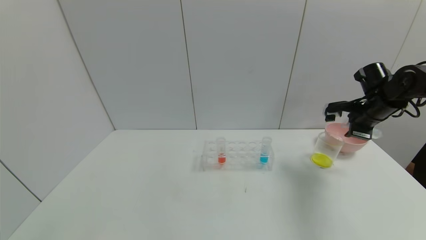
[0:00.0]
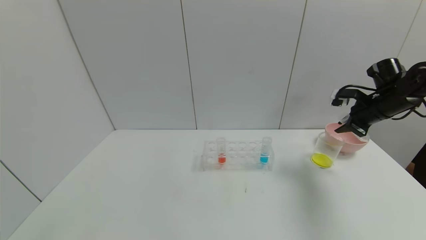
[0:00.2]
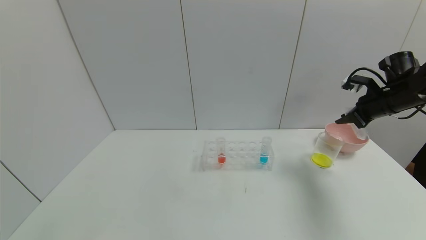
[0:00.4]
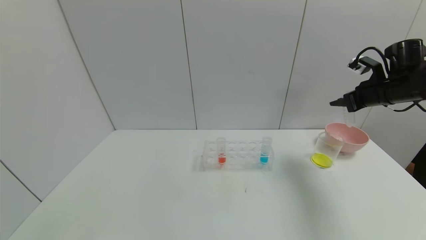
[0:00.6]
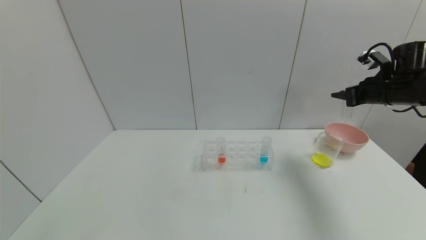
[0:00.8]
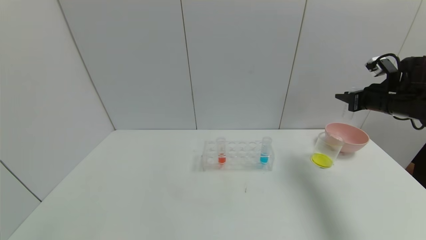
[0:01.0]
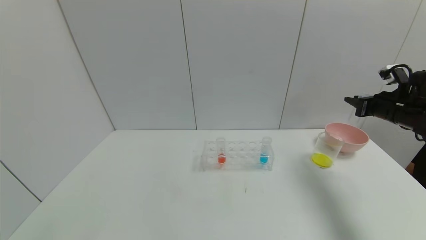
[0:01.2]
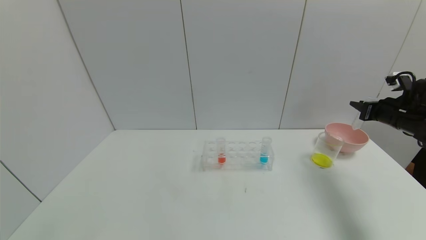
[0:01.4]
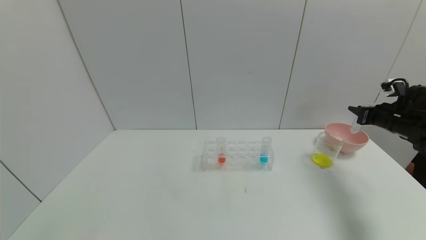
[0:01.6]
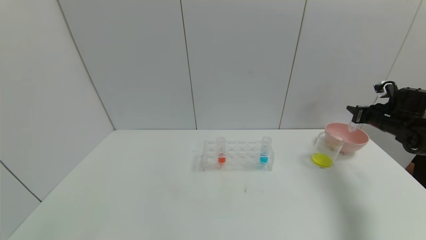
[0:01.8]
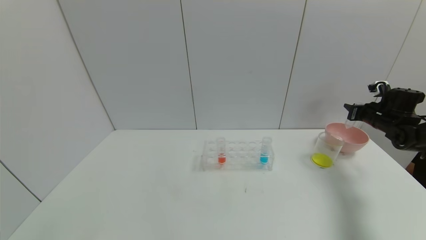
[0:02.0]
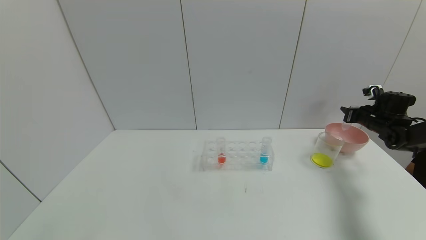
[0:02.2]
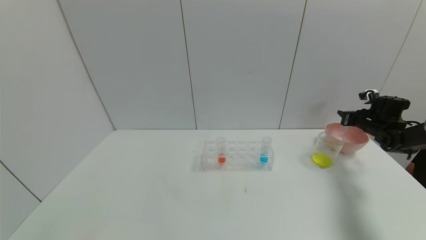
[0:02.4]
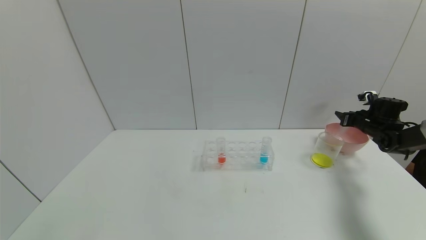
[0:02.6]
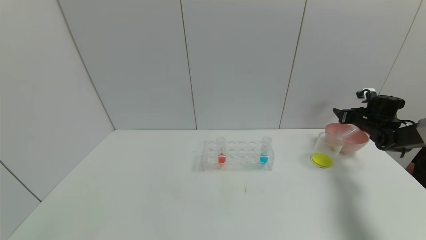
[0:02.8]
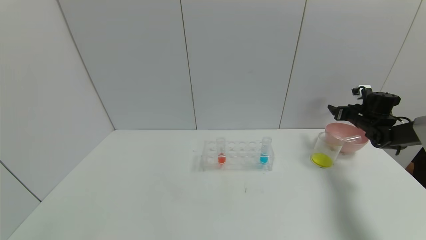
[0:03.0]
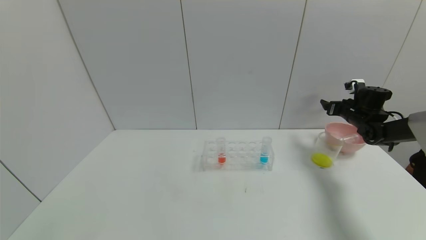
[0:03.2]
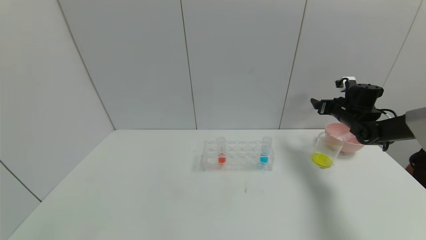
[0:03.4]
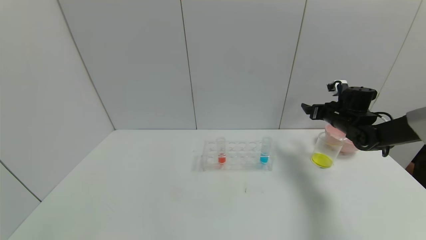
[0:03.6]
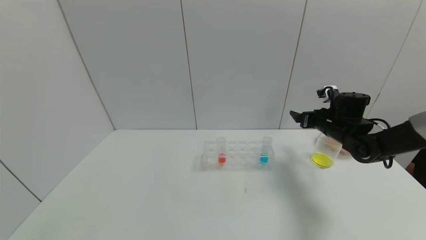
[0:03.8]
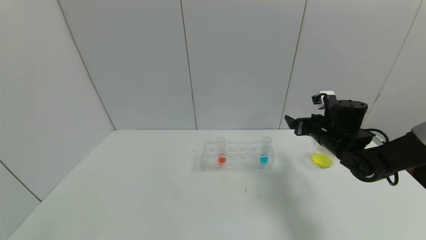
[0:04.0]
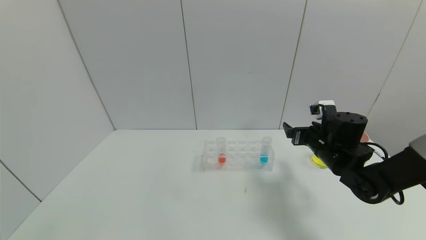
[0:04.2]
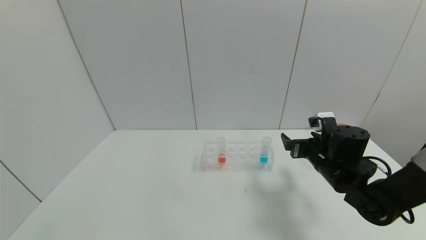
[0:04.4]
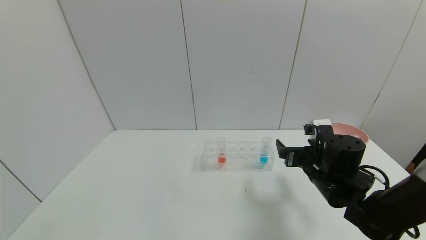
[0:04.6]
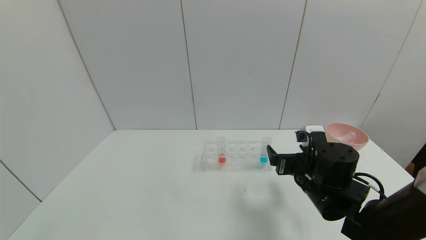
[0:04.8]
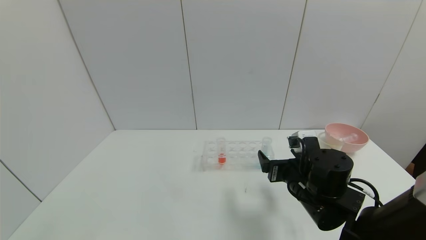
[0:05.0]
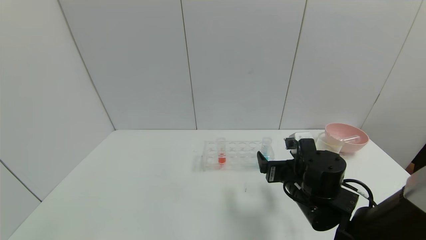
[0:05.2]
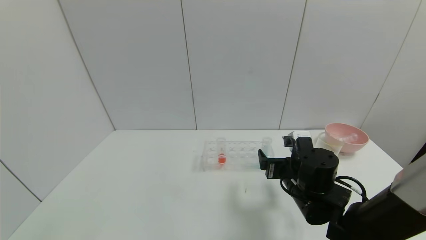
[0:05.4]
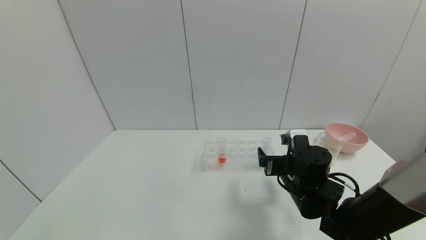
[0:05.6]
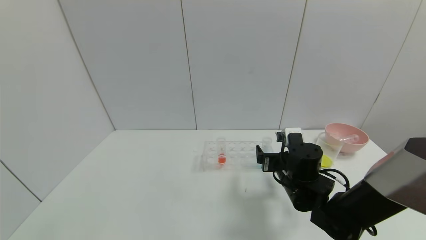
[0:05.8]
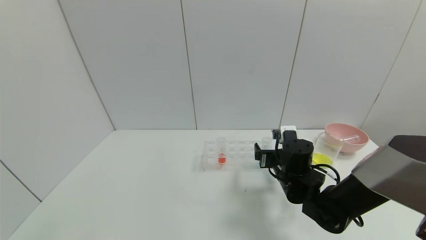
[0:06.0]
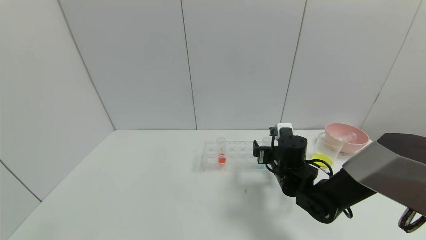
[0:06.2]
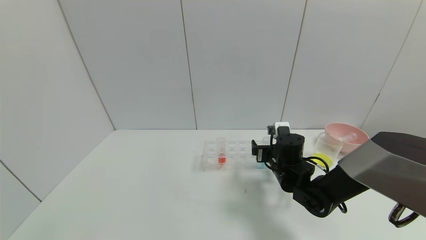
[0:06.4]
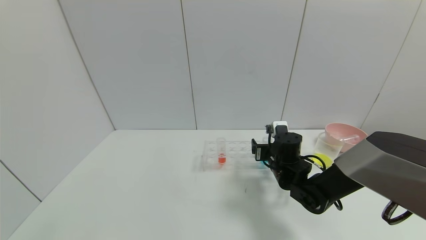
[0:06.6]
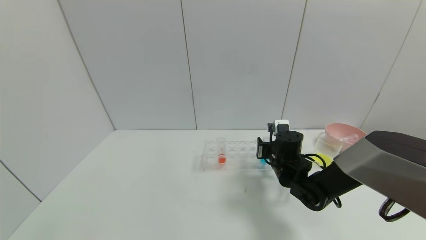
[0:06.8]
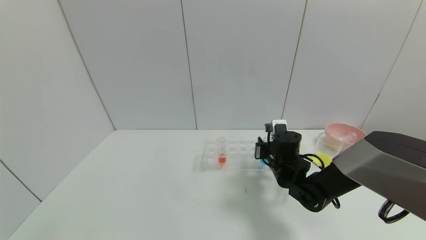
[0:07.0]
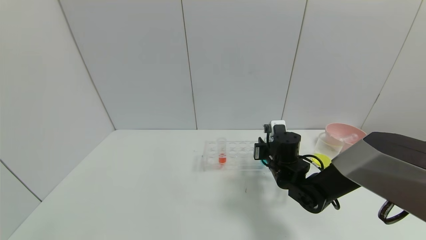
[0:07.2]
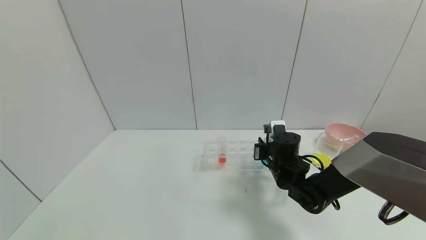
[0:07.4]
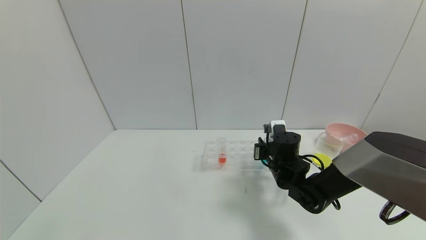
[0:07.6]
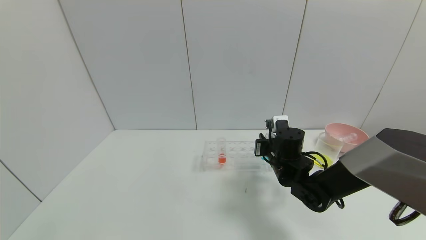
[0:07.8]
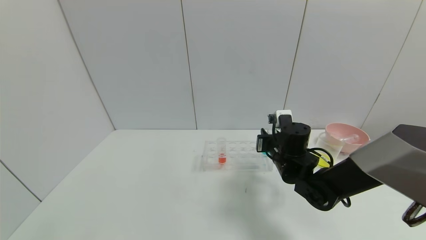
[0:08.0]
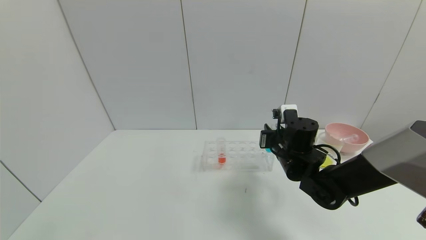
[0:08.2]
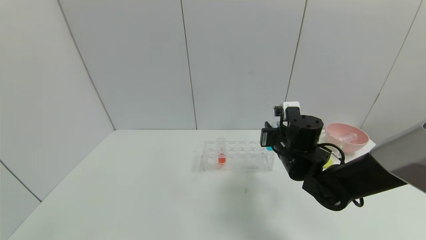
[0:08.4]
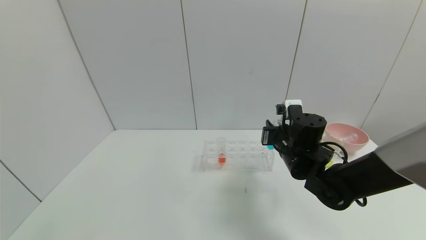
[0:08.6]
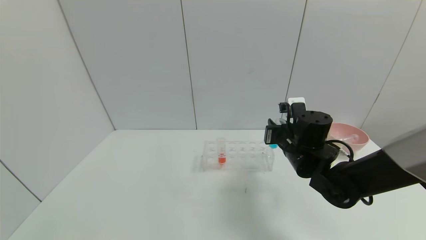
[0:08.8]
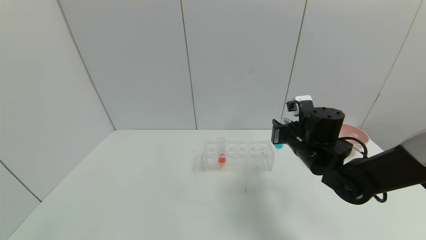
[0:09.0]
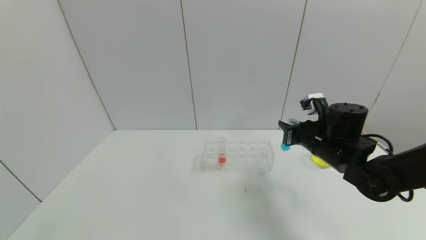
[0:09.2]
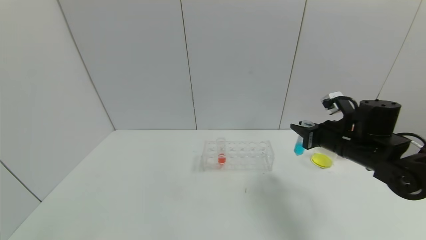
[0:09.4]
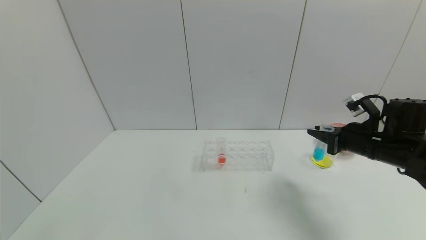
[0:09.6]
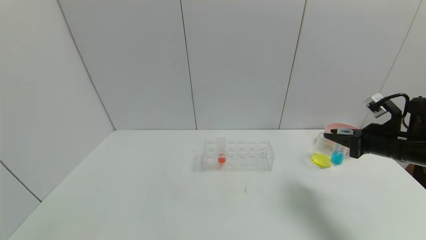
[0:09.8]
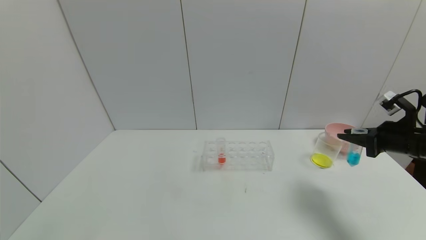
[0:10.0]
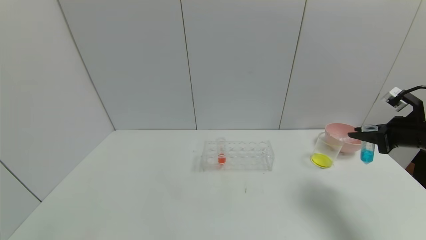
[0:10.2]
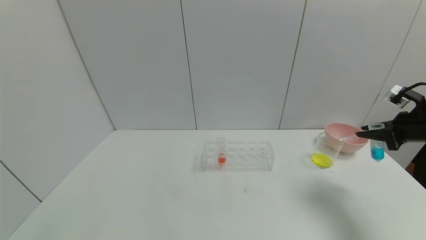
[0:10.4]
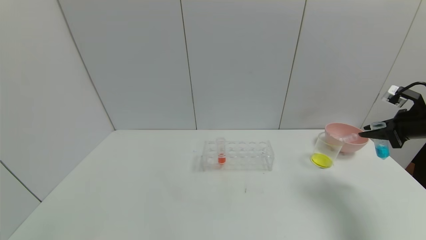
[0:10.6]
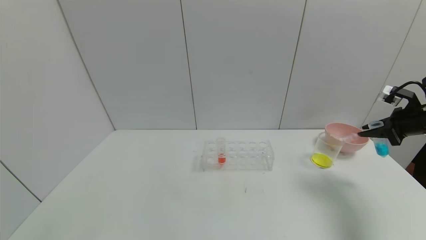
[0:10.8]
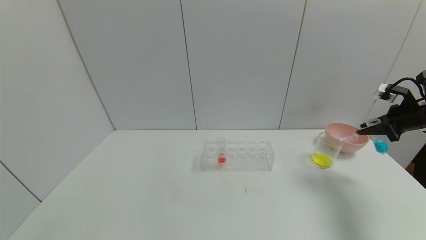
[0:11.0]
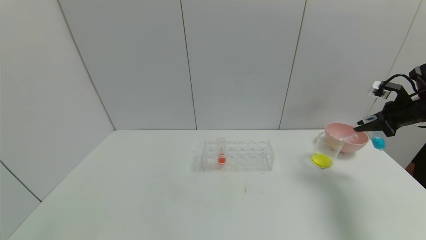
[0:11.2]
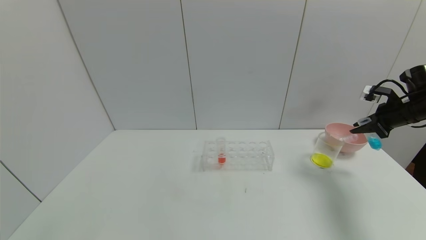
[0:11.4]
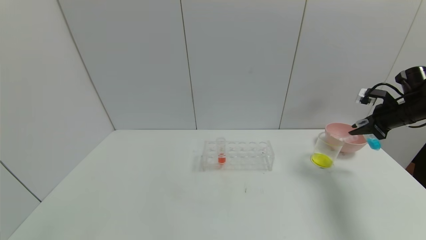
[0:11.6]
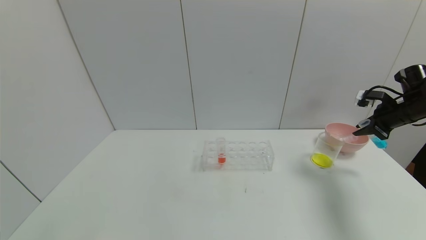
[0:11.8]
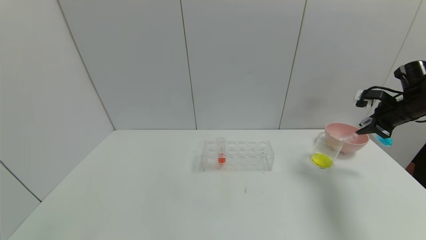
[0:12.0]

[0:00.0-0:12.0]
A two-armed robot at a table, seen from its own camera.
Task of the whole recording: pick up the test tube with yellow pigment and the test tube with blue pigment by grippers and pour them into the beaker.
Step, 0:00.0 to 0:03.2: Place the test tube into the bowl with the right gripper.
Step, 0:03.4 to 0:07.2: Grasp the blue reagent with the right gripper.
0:00.0 to 0:01.6: The right gripper goes about 10 cm to the right.
0:01.6 to 0:03.0: The right gripper goes approximately 10 cm forward, and opens up.
0:03.0 to 0:04.4: The right gripper moves to the left and backward, roughly 30 cm.
0:04.4 to 0:06.0: The right gripper goes some 10 cm to the left.
0:06.0 to 0:07.6: The right gripper closes up.
0:07.6 to 0:09.0: The right gripper heads upward, covering roughly 5 cm.
0:09.0 to 0:10.4: The right gripper heads to the right, covering some 25 cm.
0:10.4 to 0:12.0: The right gripper travels forward by some 10 cm.

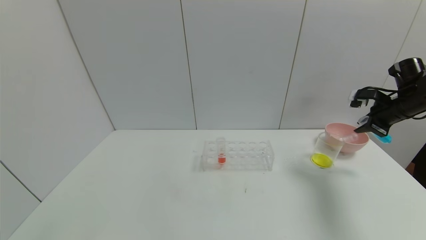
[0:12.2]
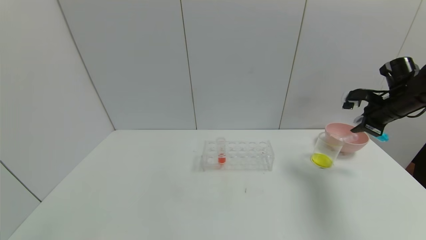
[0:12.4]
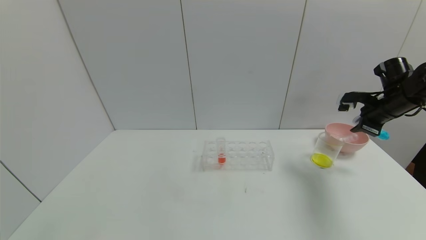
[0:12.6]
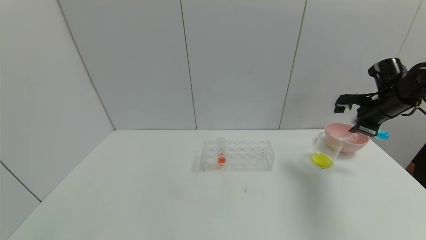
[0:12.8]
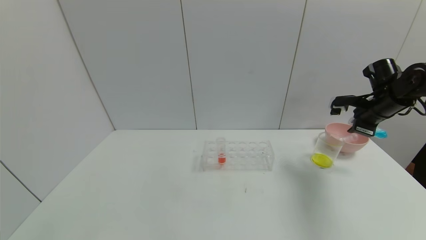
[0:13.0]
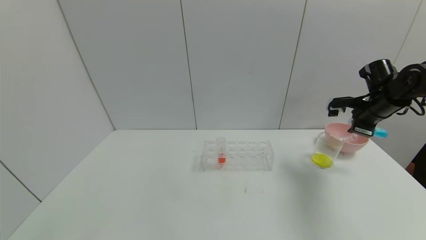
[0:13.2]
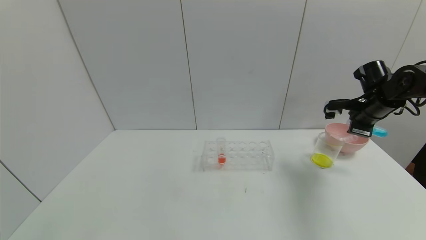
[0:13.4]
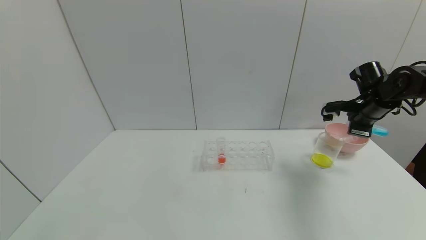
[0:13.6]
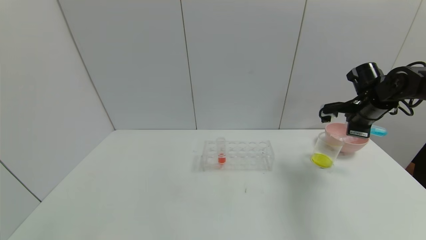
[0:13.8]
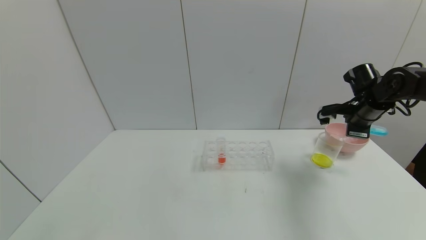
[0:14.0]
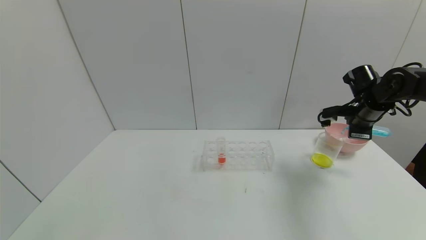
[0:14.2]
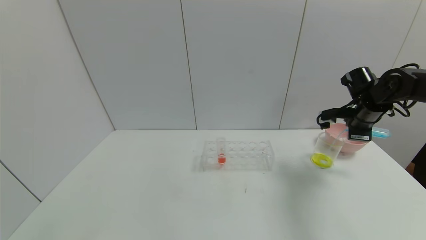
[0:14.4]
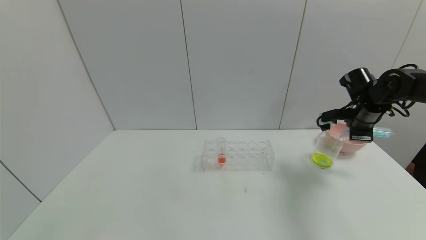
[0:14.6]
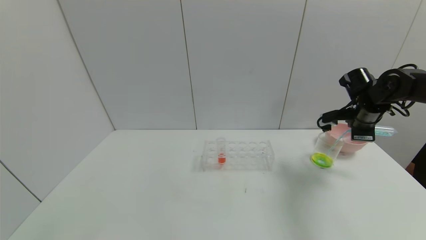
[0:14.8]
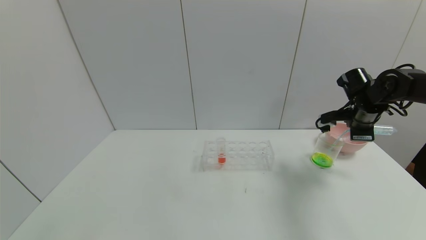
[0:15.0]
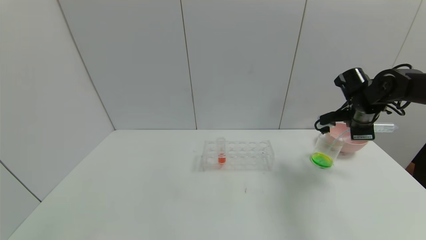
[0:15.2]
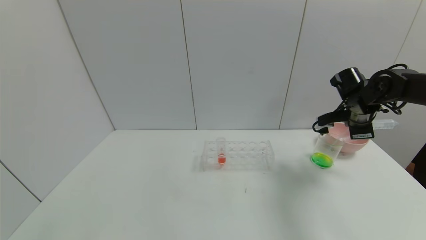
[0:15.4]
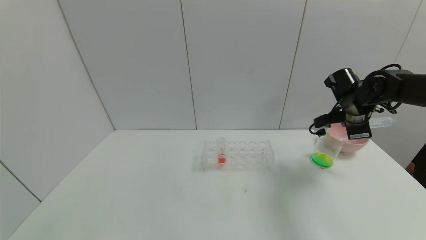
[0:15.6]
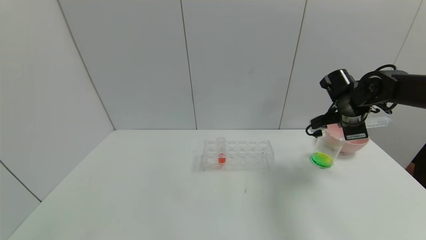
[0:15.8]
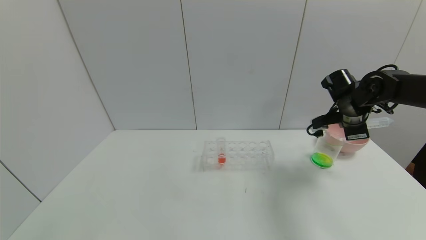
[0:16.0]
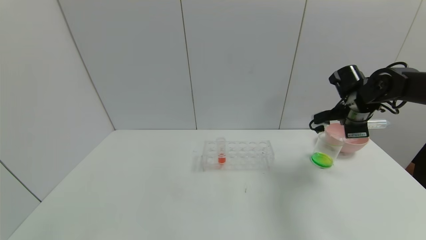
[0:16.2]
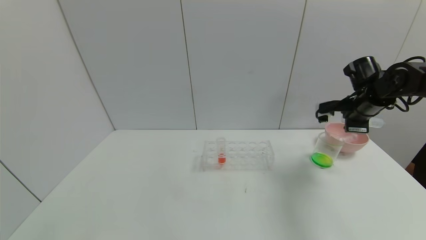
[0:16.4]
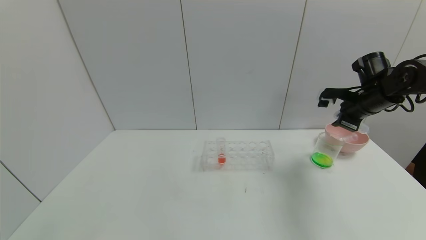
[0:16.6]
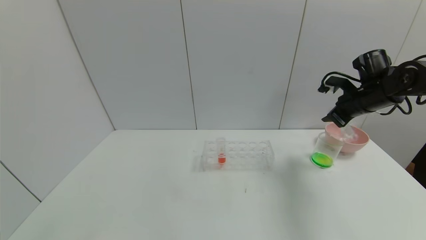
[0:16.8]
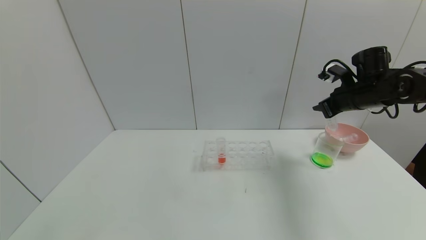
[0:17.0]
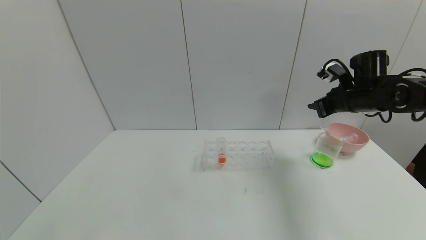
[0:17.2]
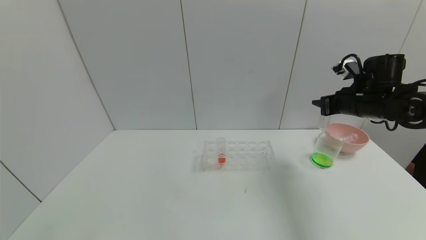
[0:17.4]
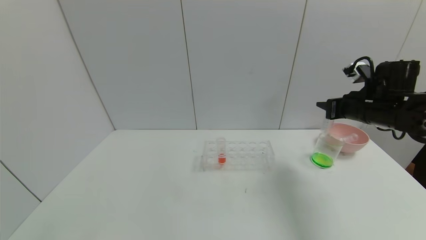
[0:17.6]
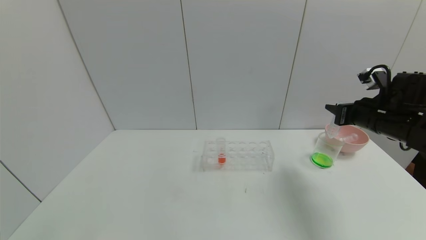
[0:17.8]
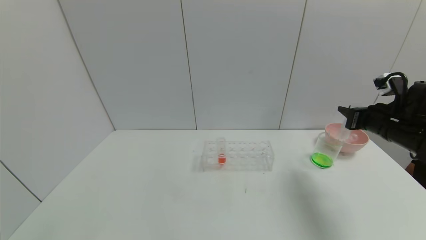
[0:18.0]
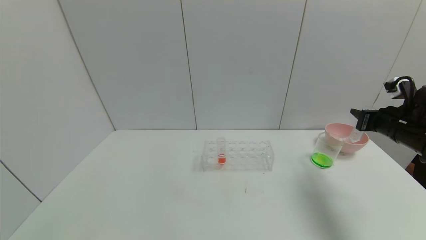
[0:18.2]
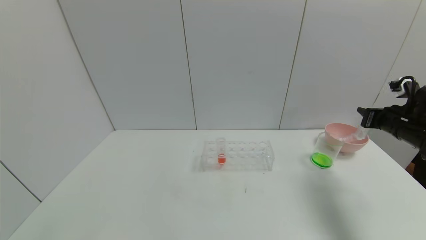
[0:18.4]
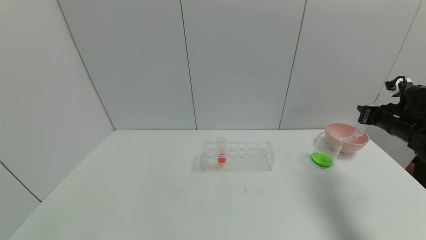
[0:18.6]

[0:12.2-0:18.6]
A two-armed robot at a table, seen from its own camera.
Task of the whole recording: pick up the test tube with yellow pigment and the test tube with blue pigment by grippers and pour them into the beaker.
Step, 0:12.2 to 0:15.8: Pour the blue reagent into the graduated cylinder with the right gripper.
0:12.2 to 0:13.8: The right gripper goes some 5 cm to the left.
0:17.0 to 0:18.6: The right gripper is displaced to the right and downward by roughly 10 cm.
